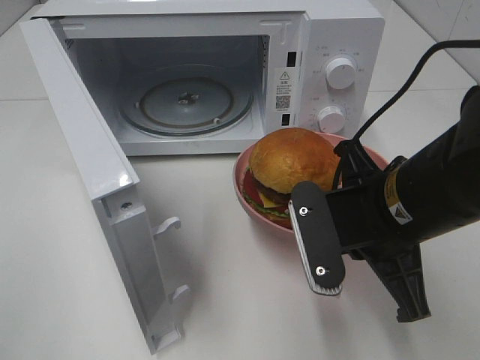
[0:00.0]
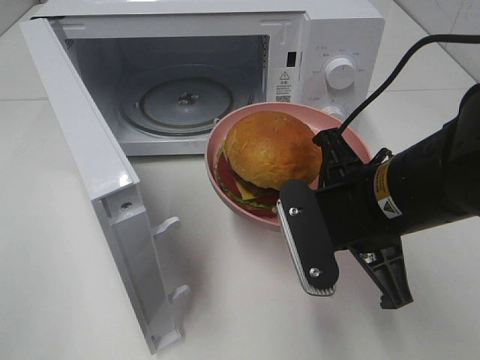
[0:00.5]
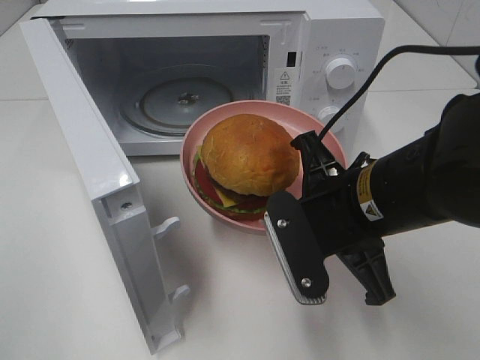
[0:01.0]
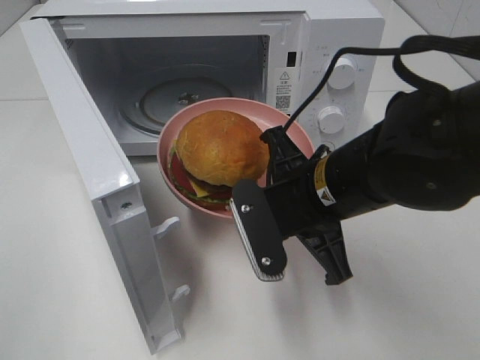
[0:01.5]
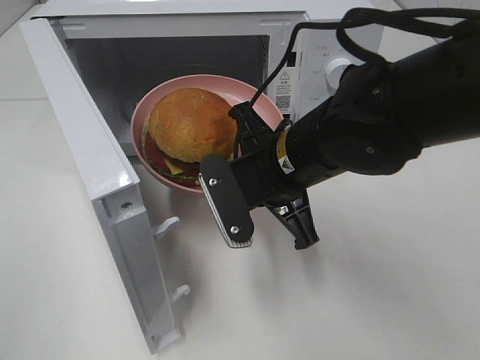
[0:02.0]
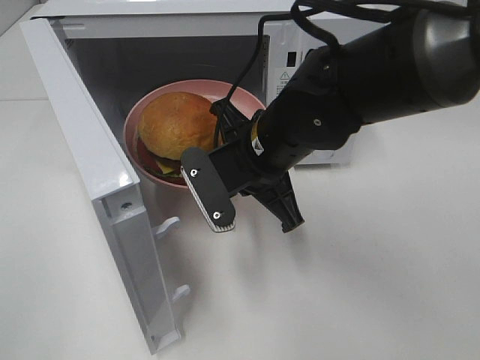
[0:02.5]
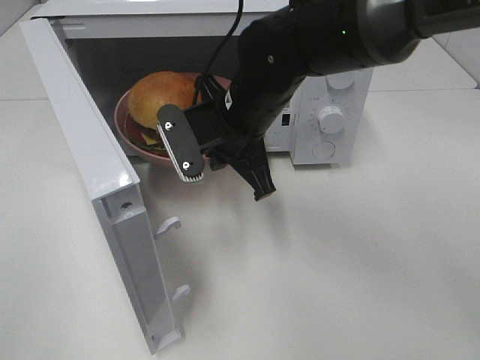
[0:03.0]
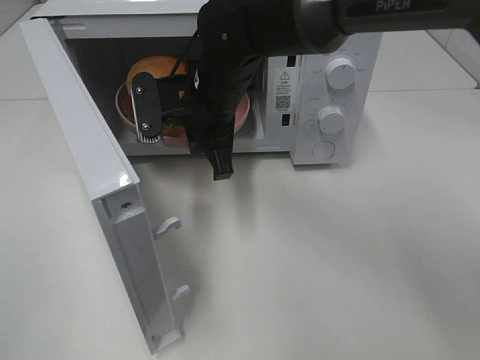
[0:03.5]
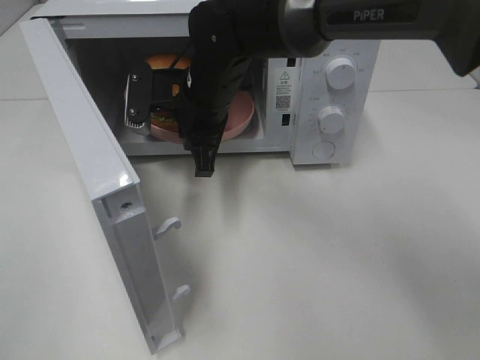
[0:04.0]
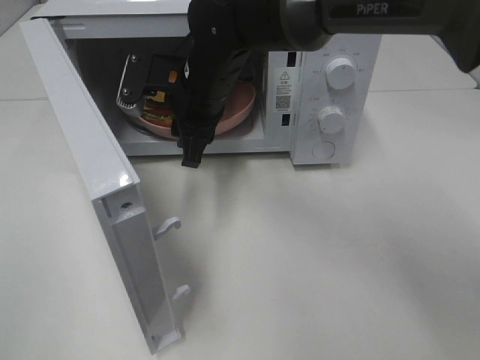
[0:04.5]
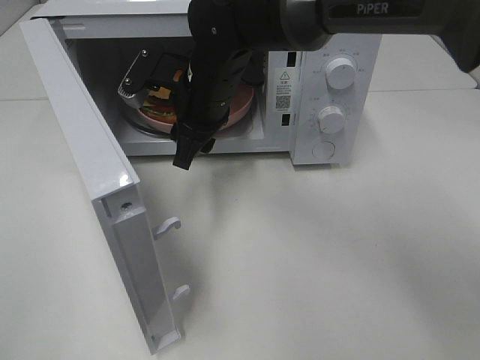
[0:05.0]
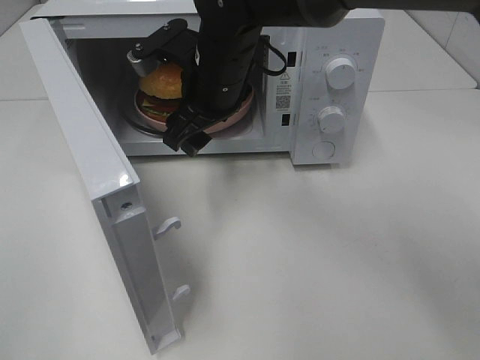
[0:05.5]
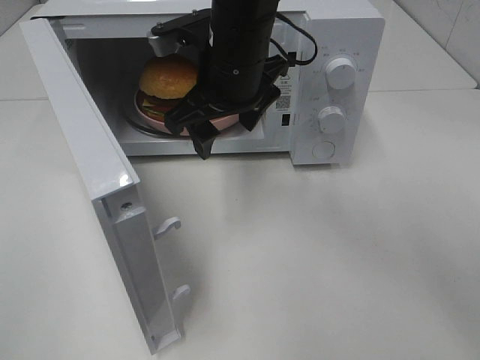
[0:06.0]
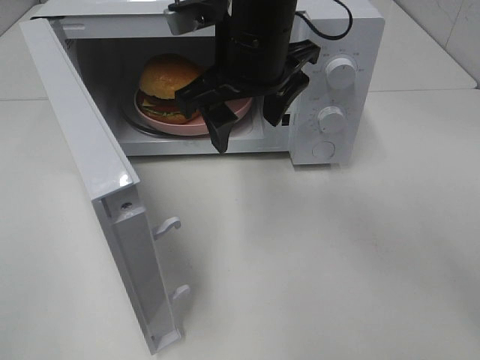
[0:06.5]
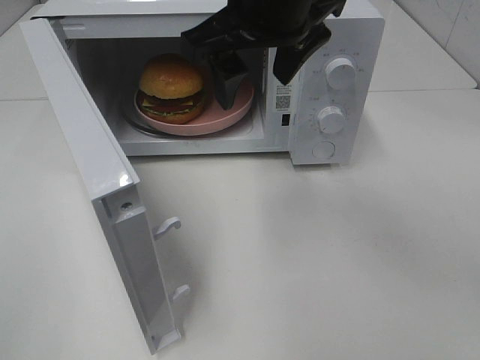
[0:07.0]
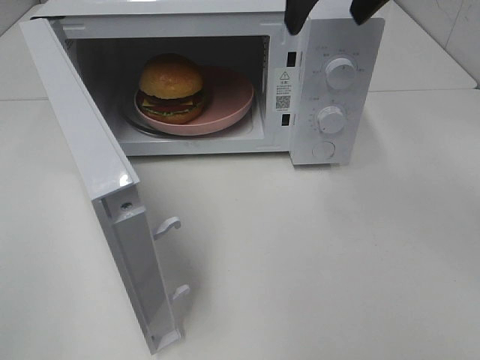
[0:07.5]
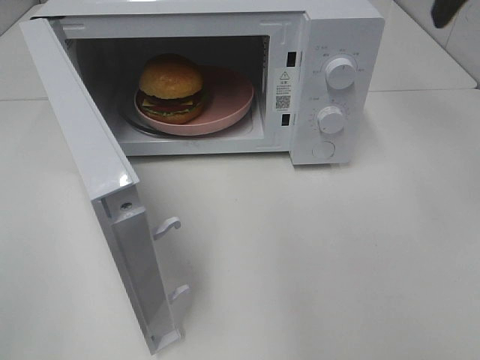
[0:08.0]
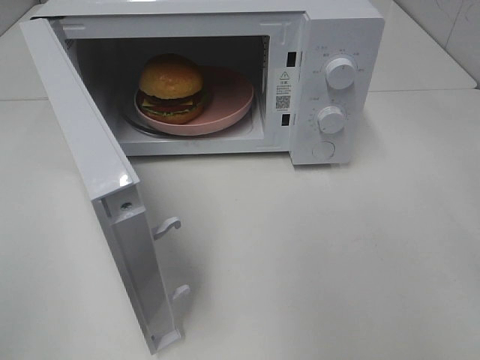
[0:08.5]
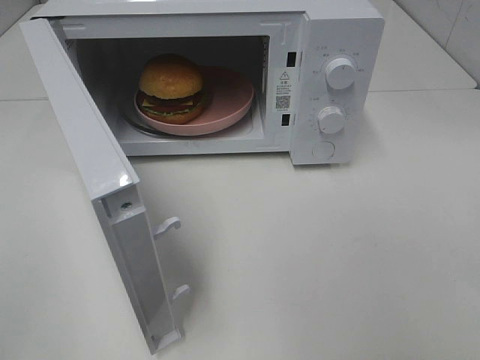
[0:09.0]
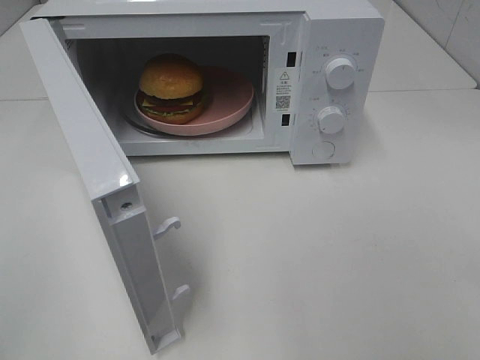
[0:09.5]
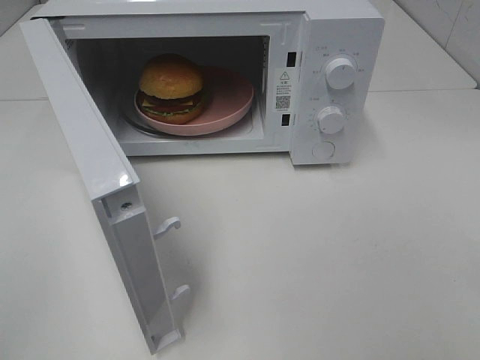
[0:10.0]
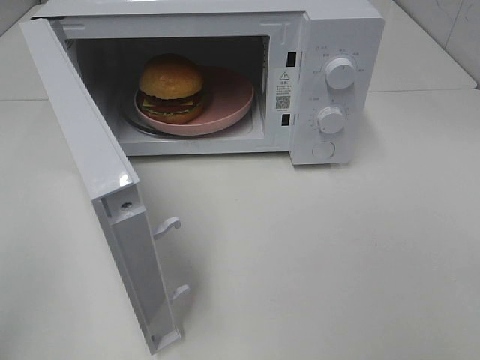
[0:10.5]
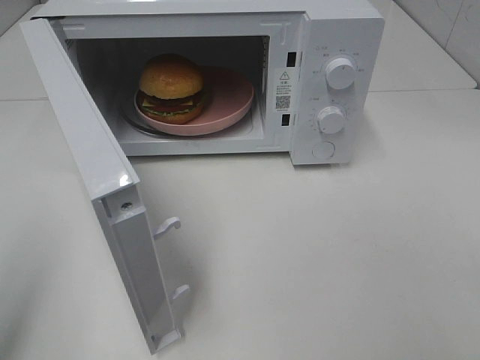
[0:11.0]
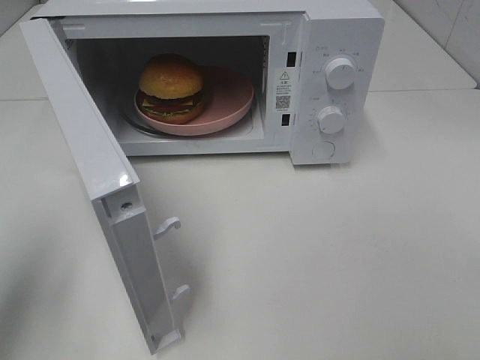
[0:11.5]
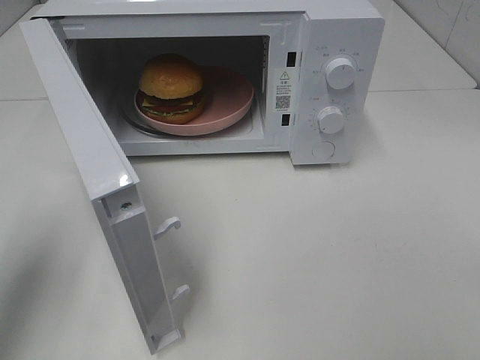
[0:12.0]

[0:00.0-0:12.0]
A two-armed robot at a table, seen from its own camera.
Task of the whole recording: Heat the burger.
Step, 0:00.0 to 0:04.0: Right hand: place the plate in the microwave.
0:00.0 to 0:02.0: The right gripper goes about 10 cm to the left and forward.
0:02.0 to 0:04.0: The right gripper travels forward and to the left by some 15 cm.
0:04.0 to 0:06.0: The right gripper heads upward, covering approximately 5 cm, and opens.
0:06.0 to 0:08.0: The right gripper goes roughly 30 cm to the right and upward.
0:10.0 to 0:12.0: The left gripper heads forward, covering about 20 cm.

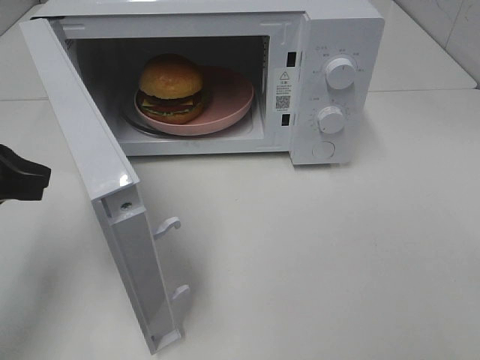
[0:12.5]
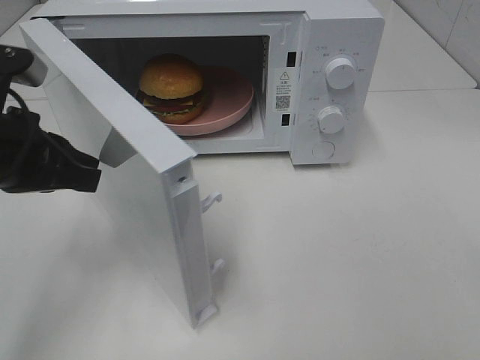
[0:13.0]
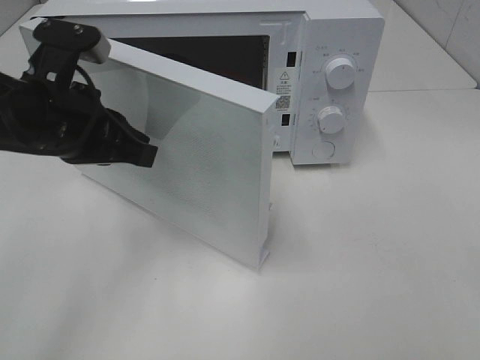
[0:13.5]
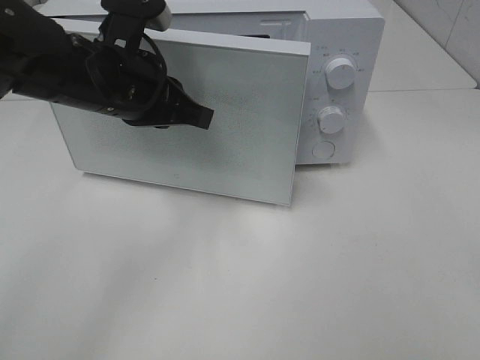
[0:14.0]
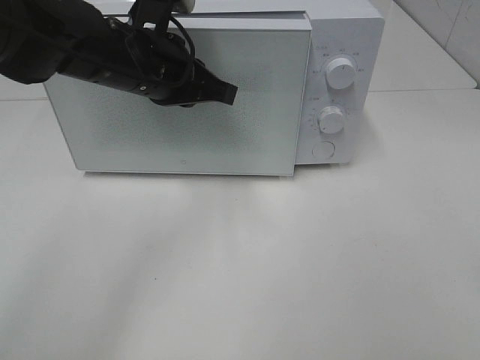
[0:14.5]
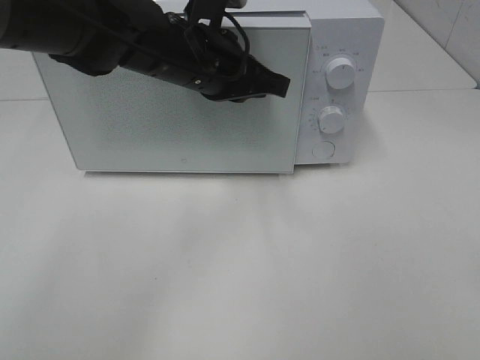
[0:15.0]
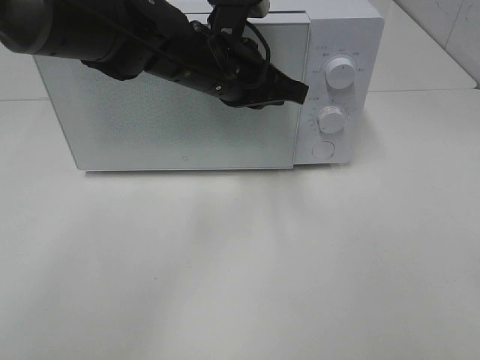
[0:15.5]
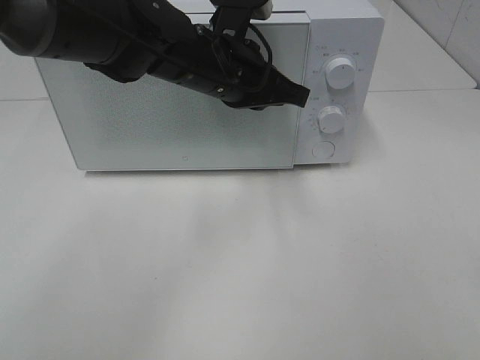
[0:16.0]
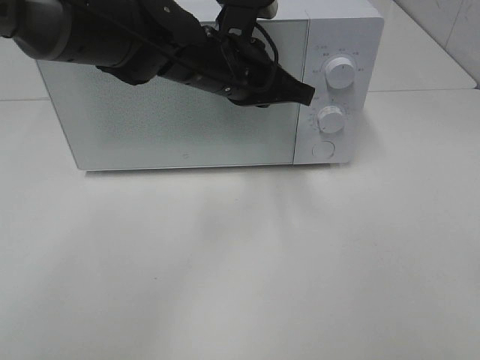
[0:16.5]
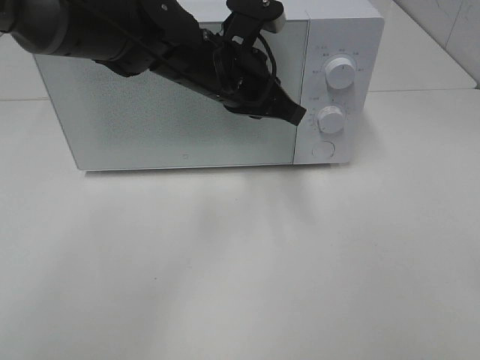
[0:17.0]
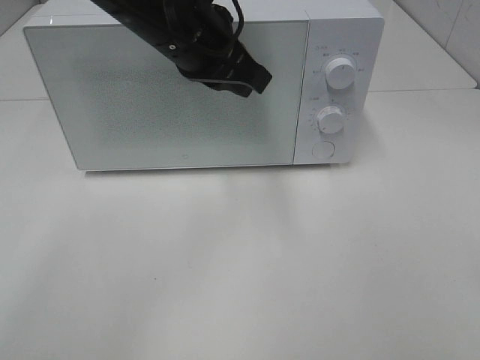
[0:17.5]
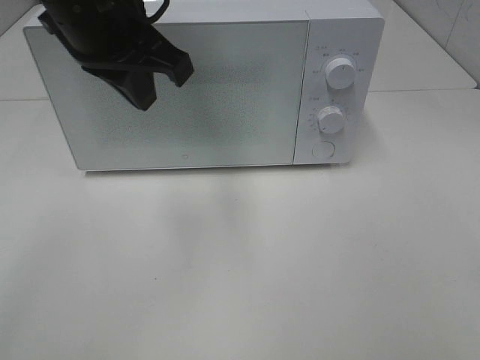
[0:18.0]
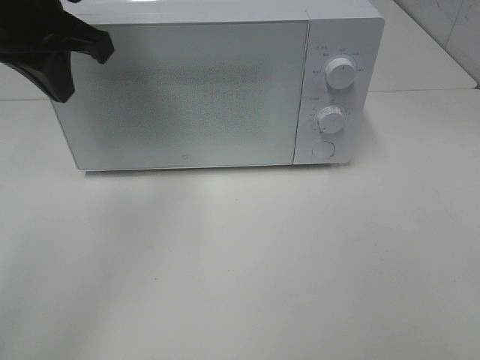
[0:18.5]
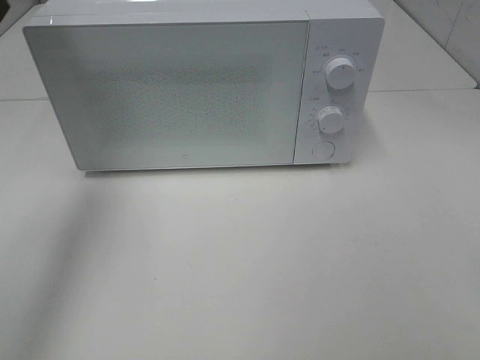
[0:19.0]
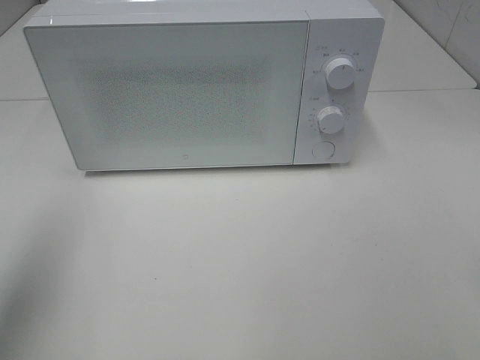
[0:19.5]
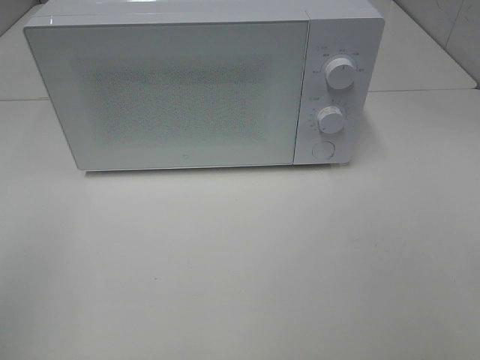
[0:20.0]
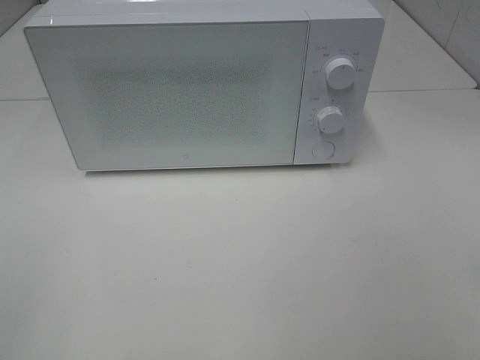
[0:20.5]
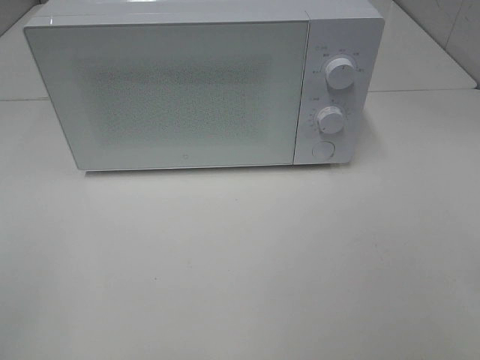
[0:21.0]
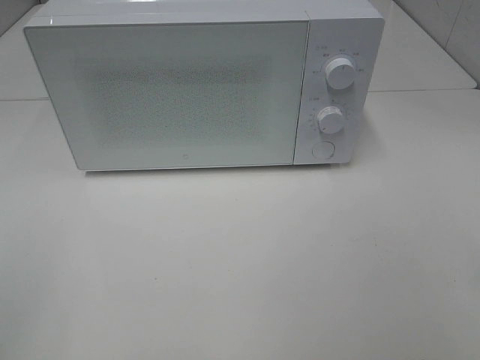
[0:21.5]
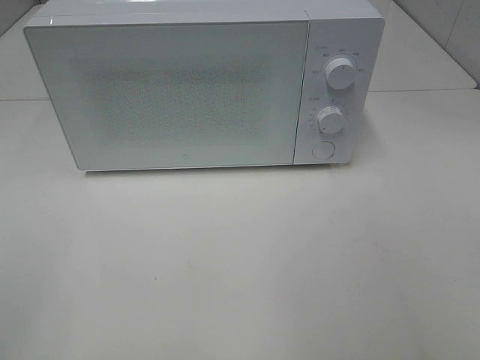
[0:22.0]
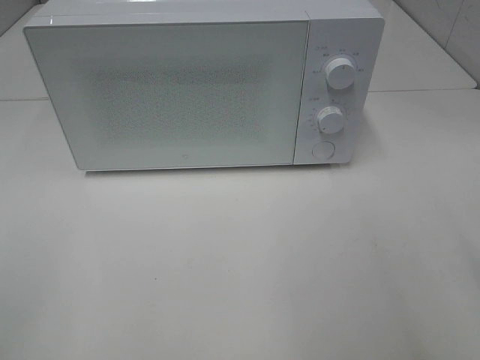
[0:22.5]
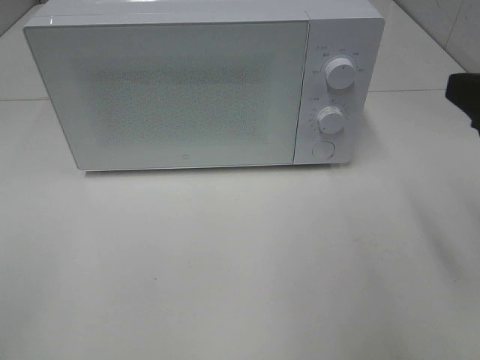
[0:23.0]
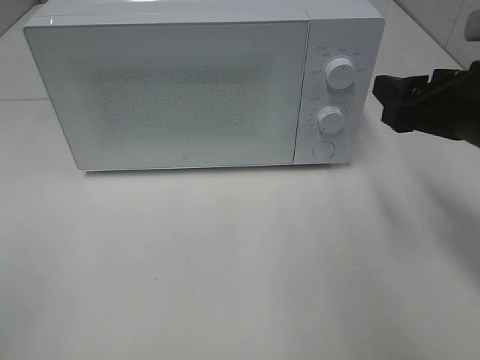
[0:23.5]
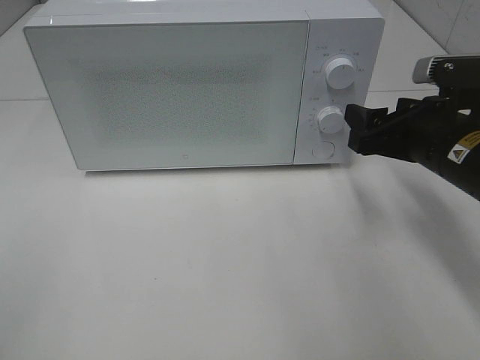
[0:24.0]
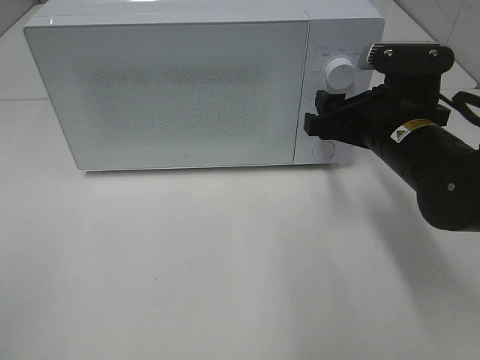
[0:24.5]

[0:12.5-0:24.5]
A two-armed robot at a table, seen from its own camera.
Task of the whole recording: Heat the burger.
Step, 0:12.5 to 0:17.0: Left hand: close the microwave door.
0:12.5 to 0:14.5: The left gripper shifts about 20 cm to the right and forward.
0:14.5 to 0:16.5: The left gripper is displaced to the right by some 10 cm.
0:16.5 to 0:18.5: The left gripper shifts some 20 cm to the left and upward.
0:18.5 to 0:20.5: The left gripper moves backward and to the left, some 35 cm.
0:22.5 to 0:24.5: The right gripper goes roughly 25 cm forward, downward and to the left.

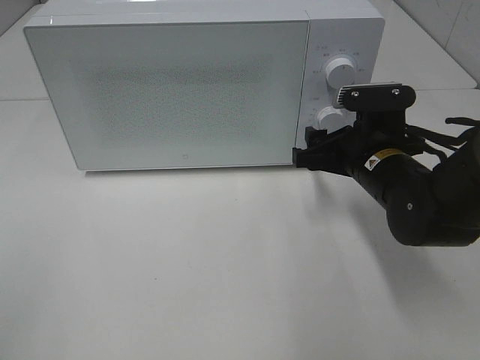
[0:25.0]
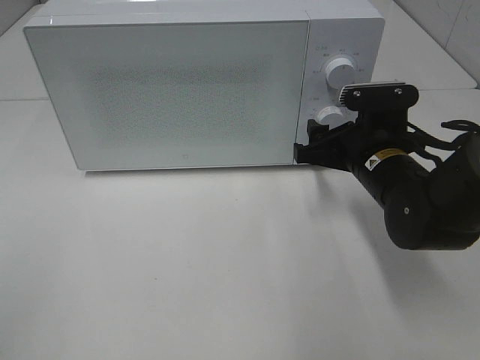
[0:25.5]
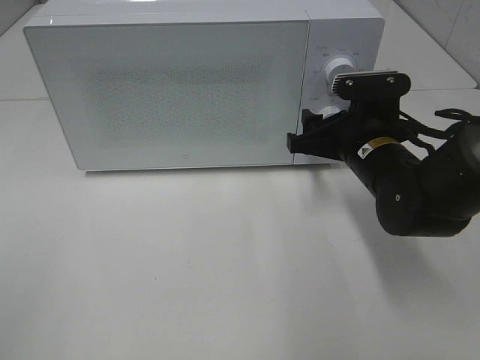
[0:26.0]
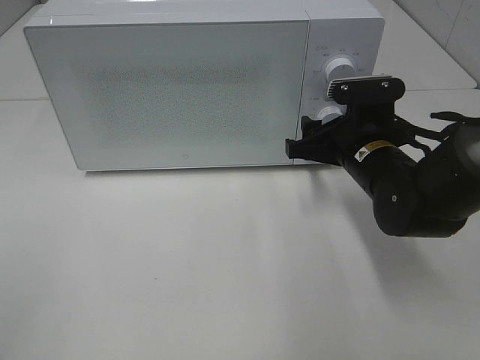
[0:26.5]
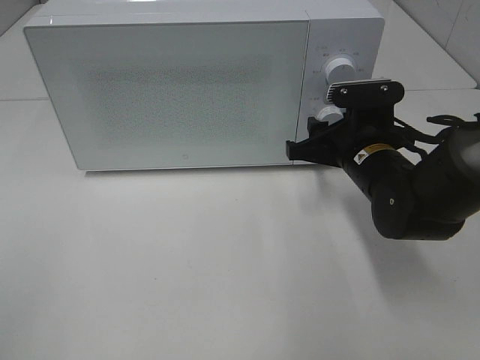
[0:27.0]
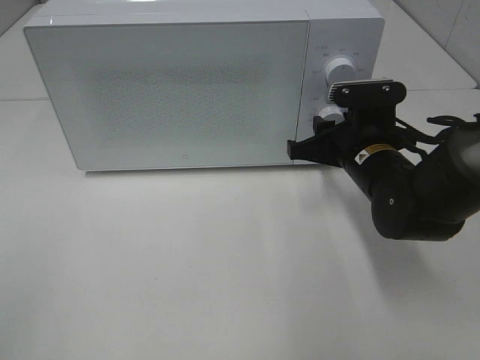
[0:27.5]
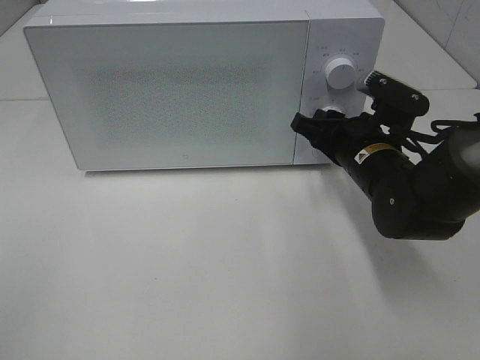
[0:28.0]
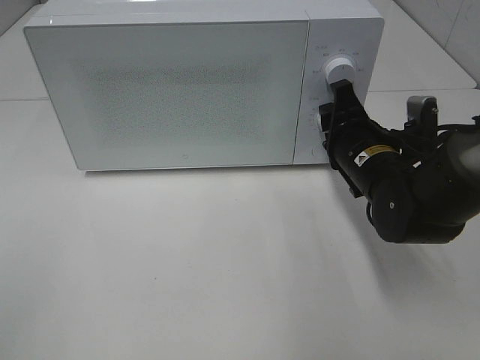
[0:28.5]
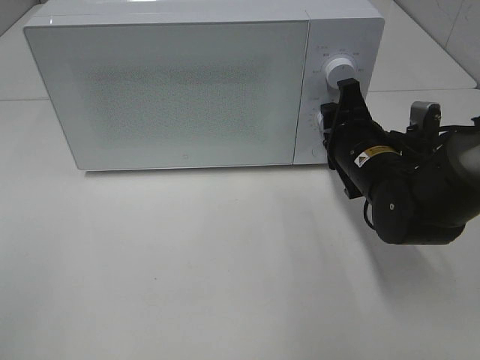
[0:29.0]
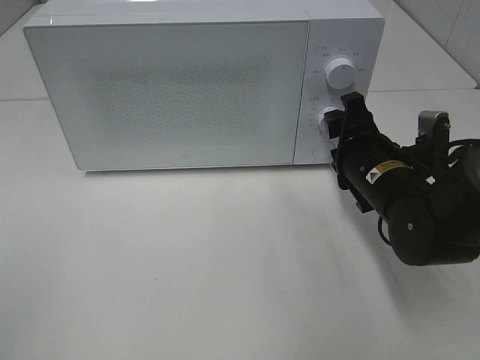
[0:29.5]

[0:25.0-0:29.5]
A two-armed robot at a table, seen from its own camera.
Task of the whole recording: Heat the burger.
Step, 0:25.0 to 0:29.0: Right hand: twist timer button.
0:25.0 to 0:27.0: The grippers stay close to where they were, moving slightly.
